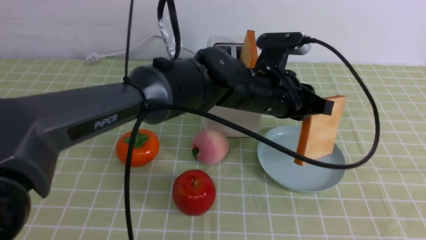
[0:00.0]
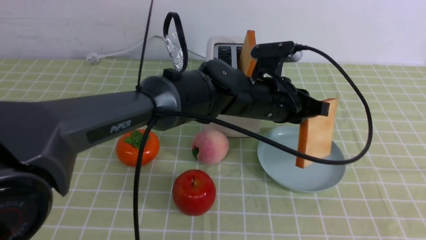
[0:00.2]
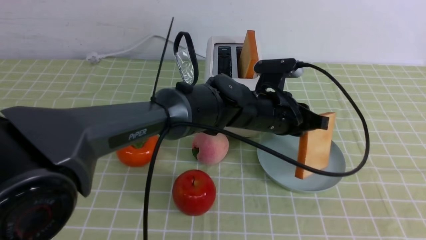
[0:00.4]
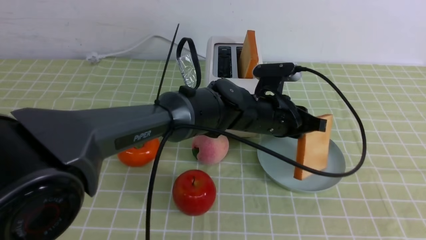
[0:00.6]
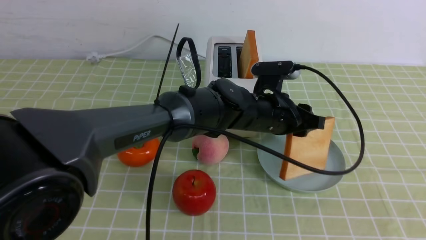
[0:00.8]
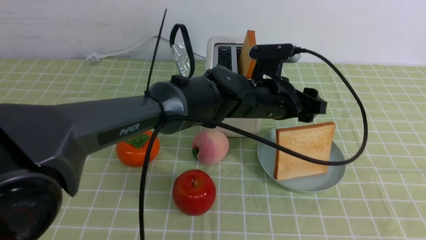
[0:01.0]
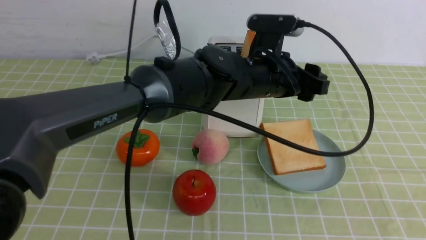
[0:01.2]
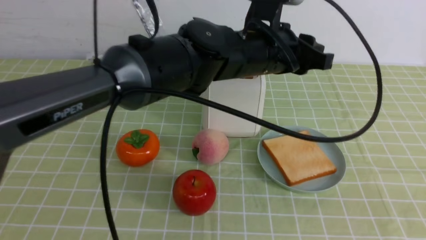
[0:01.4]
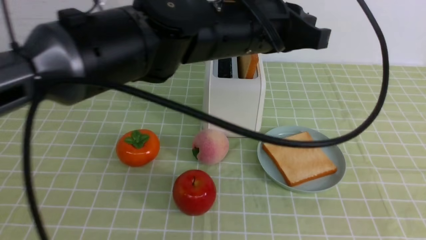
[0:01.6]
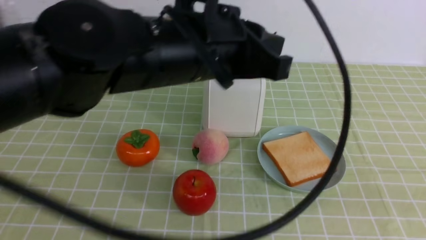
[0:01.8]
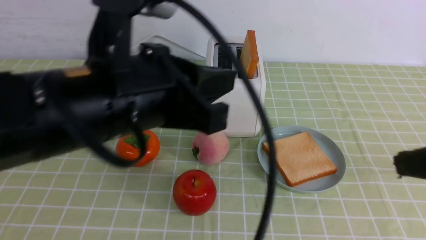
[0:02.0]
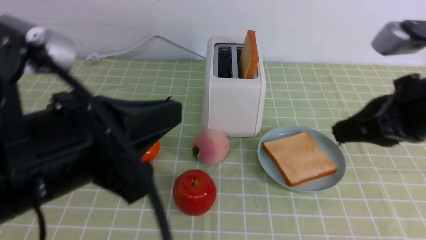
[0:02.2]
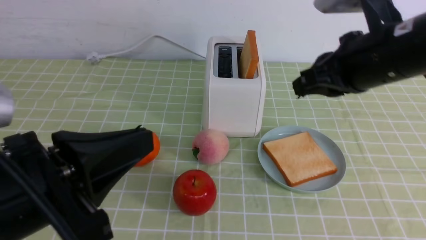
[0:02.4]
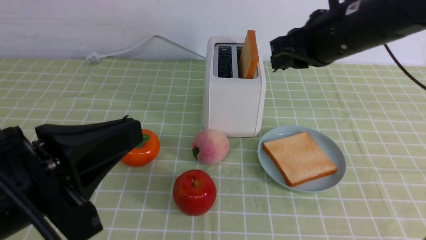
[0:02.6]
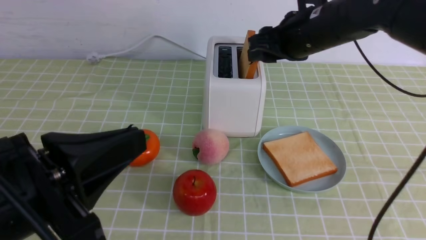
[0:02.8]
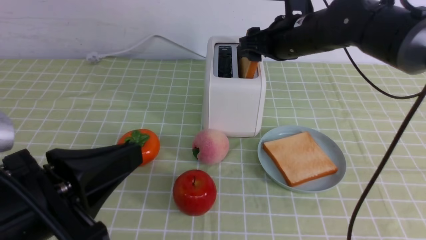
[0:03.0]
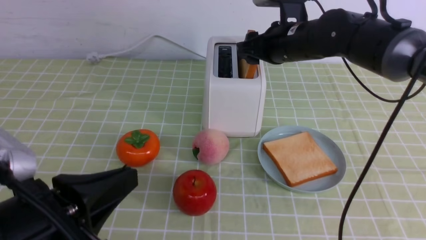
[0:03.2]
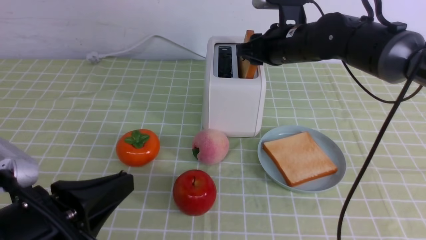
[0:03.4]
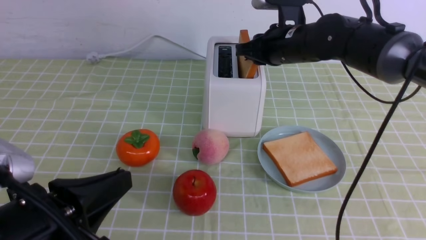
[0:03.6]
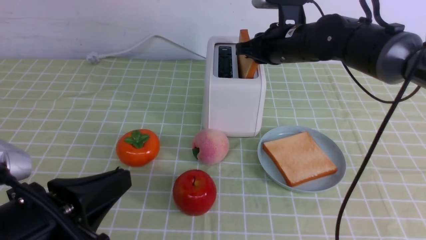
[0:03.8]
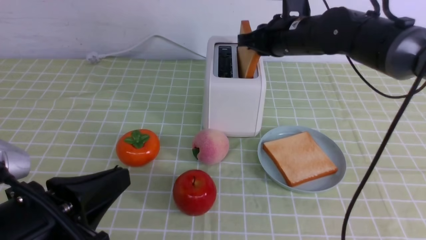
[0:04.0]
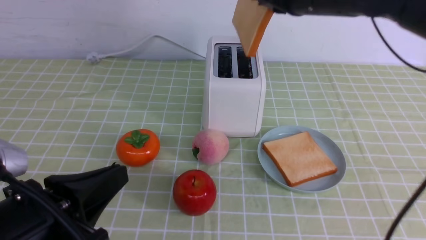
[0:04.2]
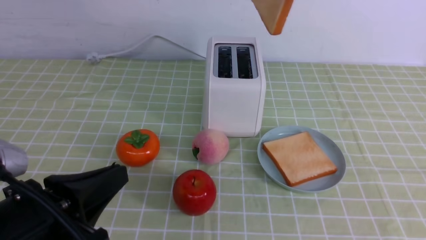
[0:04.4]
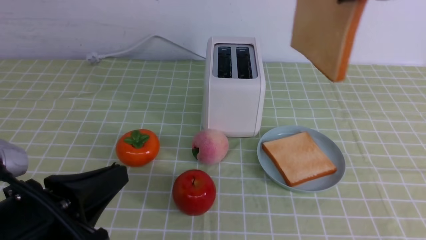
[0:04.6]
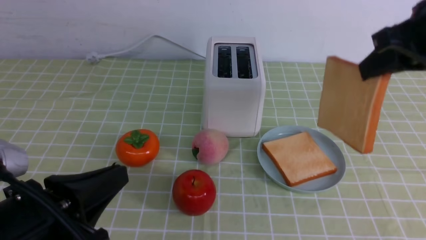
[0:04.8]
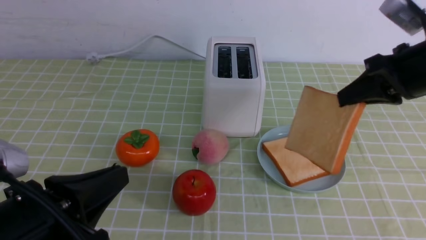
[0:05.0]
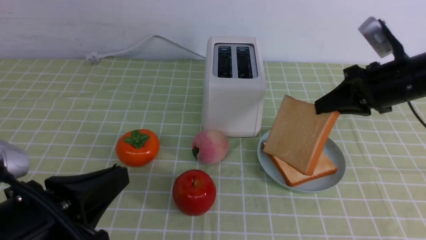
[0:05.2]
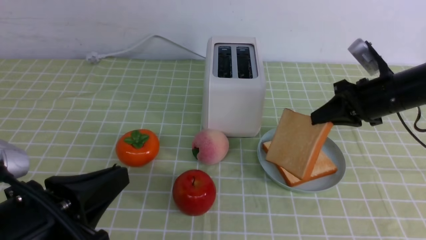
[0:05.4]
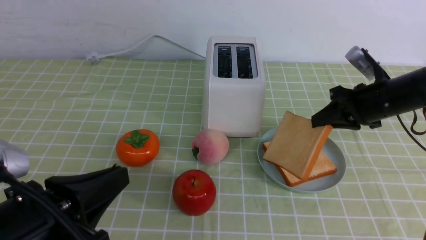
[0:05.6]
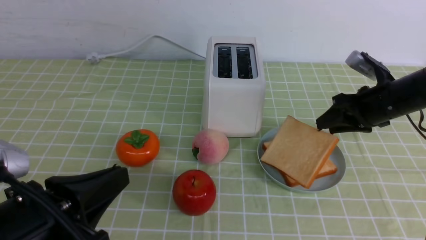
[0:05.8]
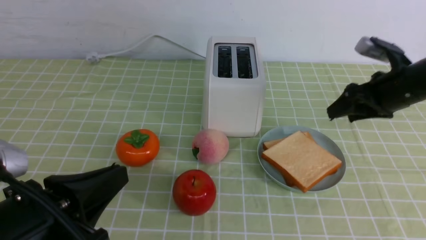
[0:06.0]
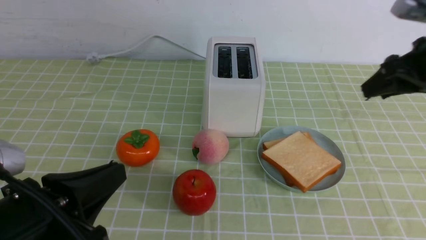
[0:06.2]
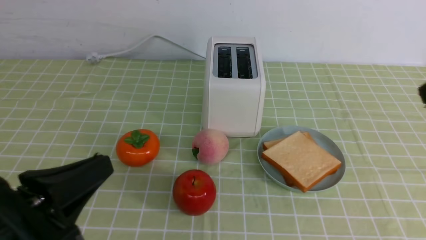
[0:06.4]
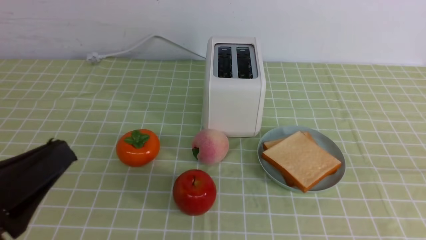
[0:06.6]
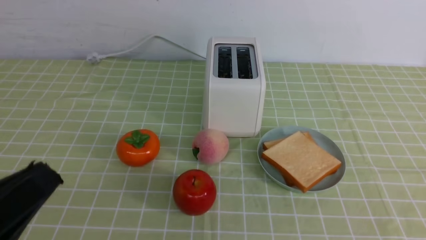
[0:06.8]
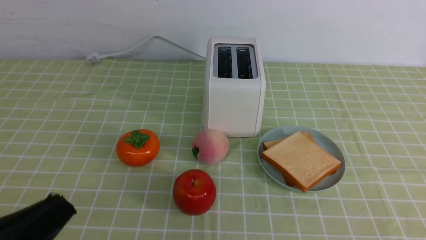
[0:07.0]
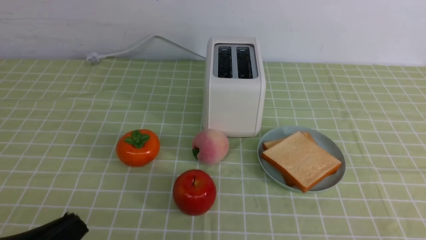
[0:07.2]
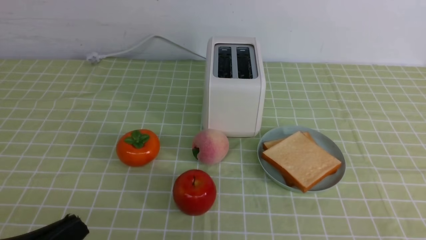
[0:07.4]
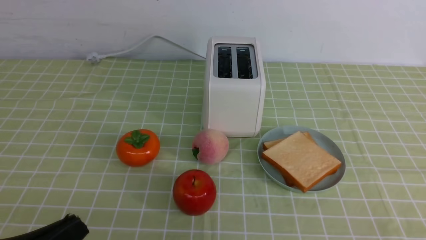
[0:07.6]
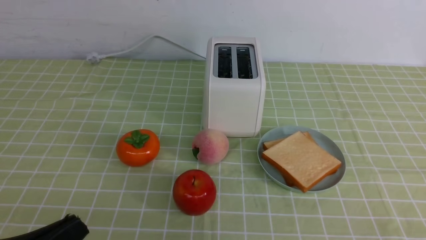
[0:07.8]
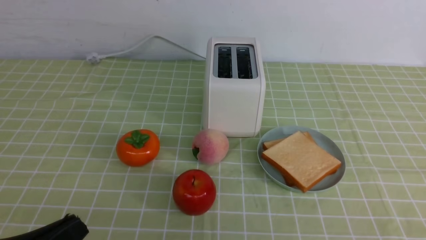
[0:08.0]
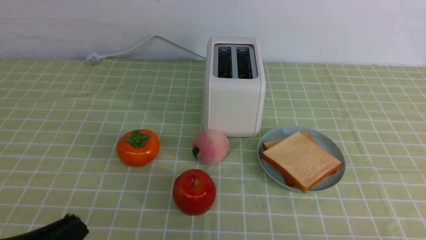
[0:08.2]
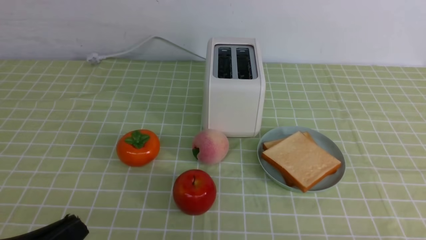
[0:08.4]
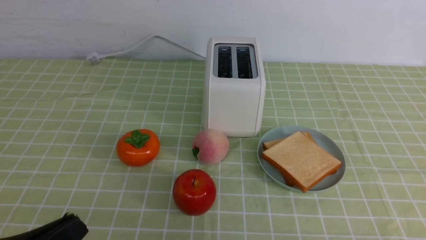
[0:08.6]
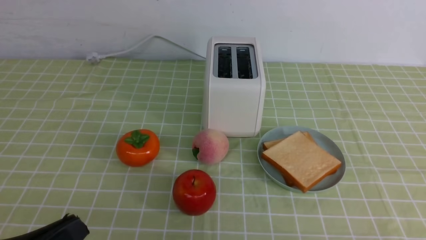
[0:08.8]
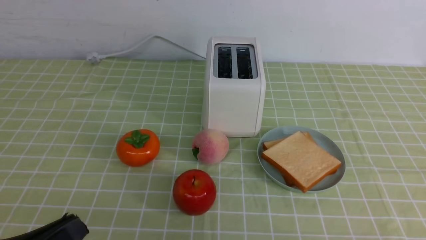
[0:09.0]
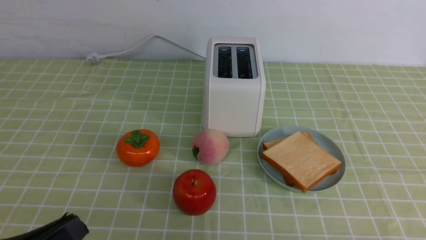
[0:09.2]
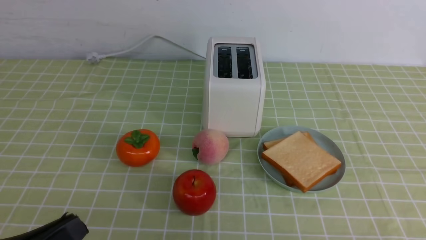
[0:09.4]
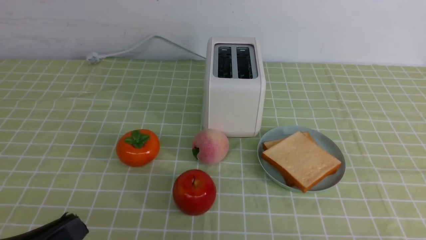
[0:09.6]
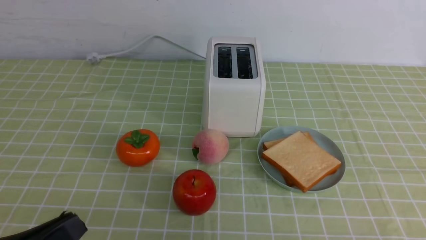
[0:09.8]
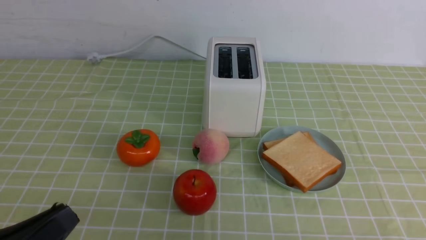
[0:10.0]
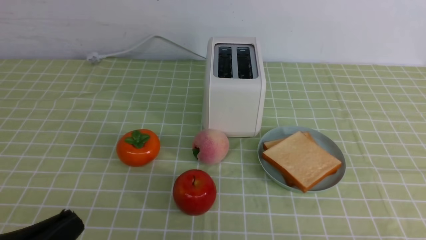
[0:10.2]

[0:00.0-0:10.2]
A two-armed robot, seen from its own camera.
Task of the whole recording: take toasted bread from bread machine on green coffee tablecloth place on plate.
Step, 0:00.0 to 0:01.4: use the left arm to put a slice of bread into the empty plate.
Step, 0:01.6 to 0:04.2: use the right arm to take out a slice of bread.
Step, 0:04.4 to 0:06.0: use the right arm to put a slice of bread into the plate.
0:00.0 to 0:01.4: The left gripper is displaced upward by roughly 5 cm, and opens and closes again.
0:01.4 to 0:03.0: The right gripper shifts some 40 cm forward, and opens, while the left gripper travels backward and to the left by about 30 cm, and closes its fingers.
0:03.0 to 0:04.4: The right gripper shifts some 15 cm upward and backward, and closes its fingers.
0:04.4 to 0:05.8: The right gripper shifts approximately 25 cm downward and to the right, and opens its fingers.
0:05.8 to 0:07.2: The right gripper travels backward by approximately 40 cm, and closes up. Meanwhile the left gripper goes approximately 5 cm backward.

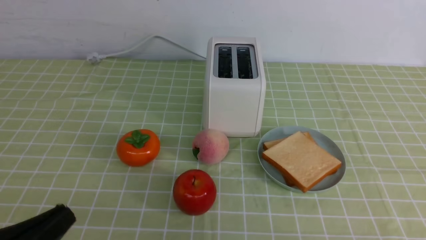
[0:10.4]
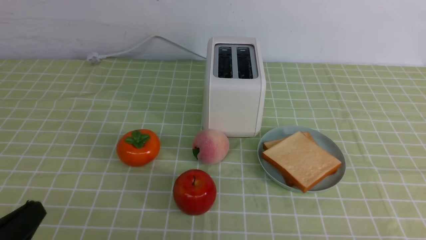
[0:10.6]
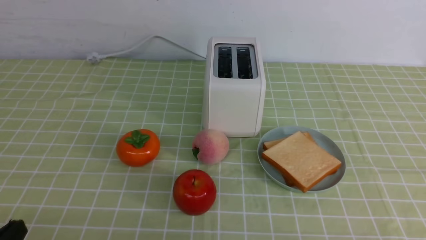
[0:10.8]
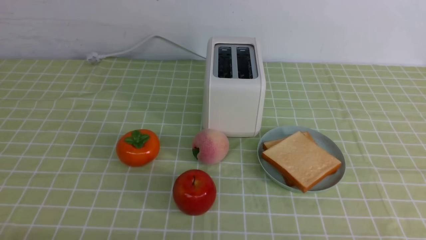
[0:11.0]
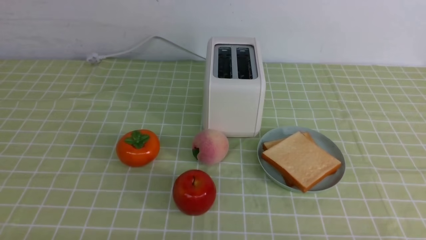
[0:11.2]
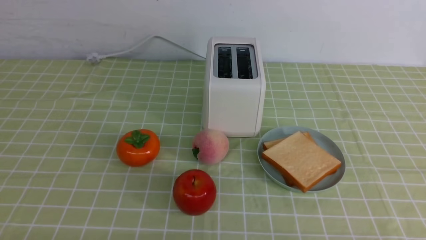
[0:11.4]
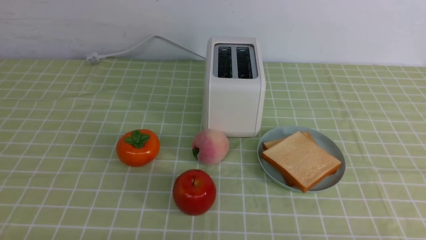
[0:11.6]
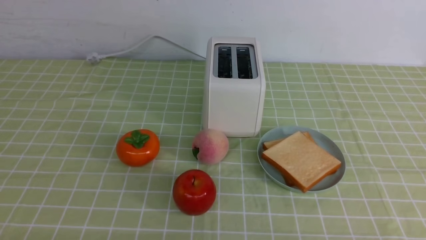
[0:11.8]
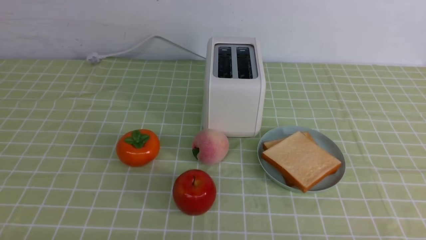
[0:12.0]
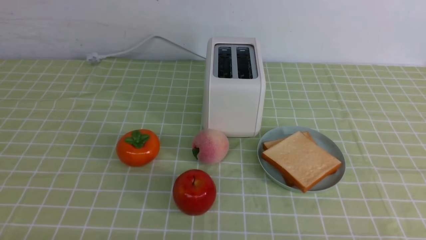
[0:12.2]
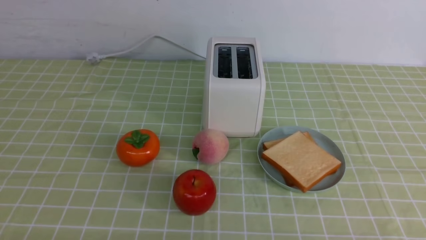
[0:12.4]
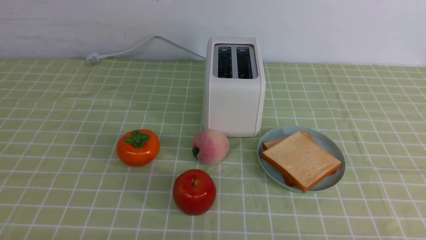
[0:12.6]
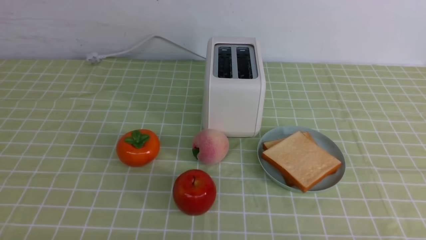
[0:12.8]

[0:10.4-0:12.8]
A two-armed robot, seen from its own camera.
Task of the whole recording: take toasted bread from bread machine on green coffee tablecloth place on plate.
0:10.4 to 0:11.6: The left gripper heads downward, covering some 5 cm.
0:11.6 to 0:12.8: The two grippers keep their place.
